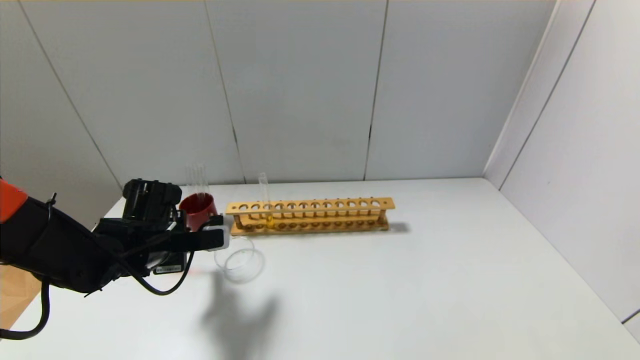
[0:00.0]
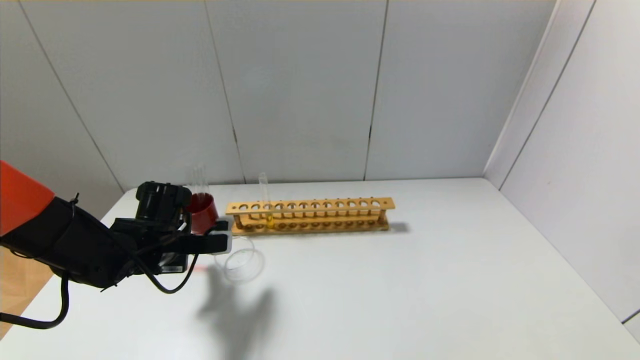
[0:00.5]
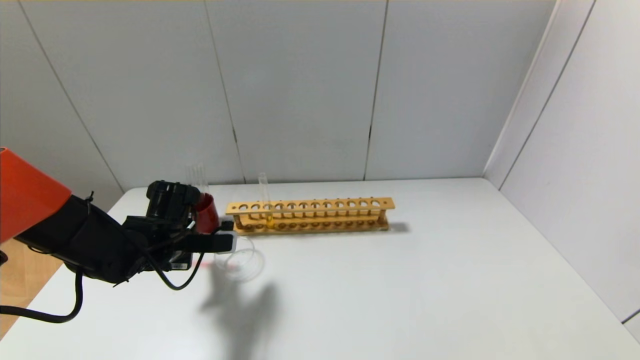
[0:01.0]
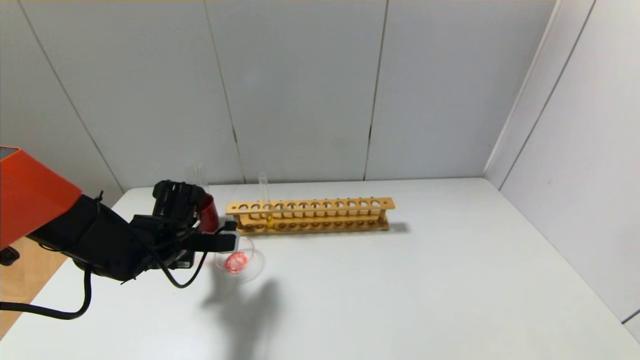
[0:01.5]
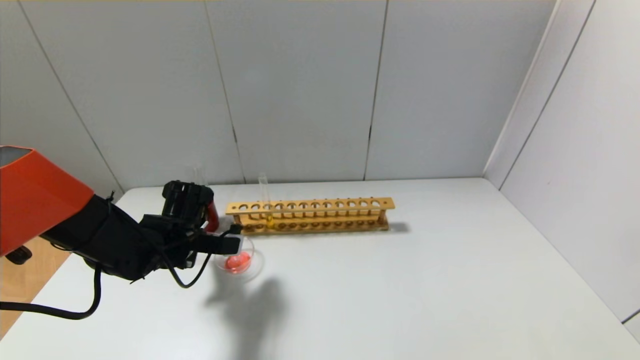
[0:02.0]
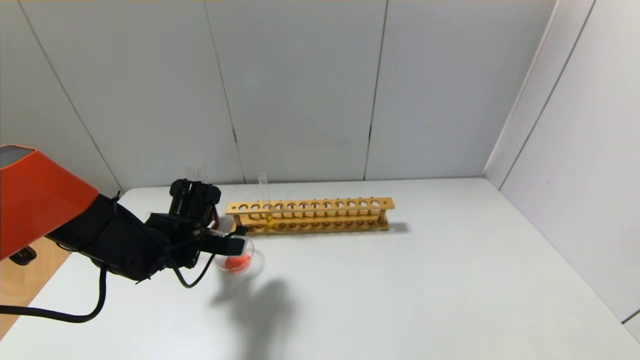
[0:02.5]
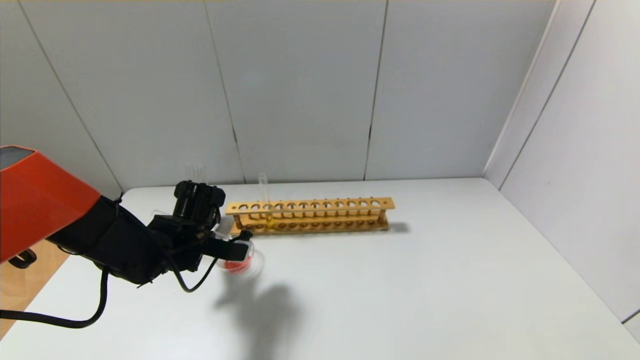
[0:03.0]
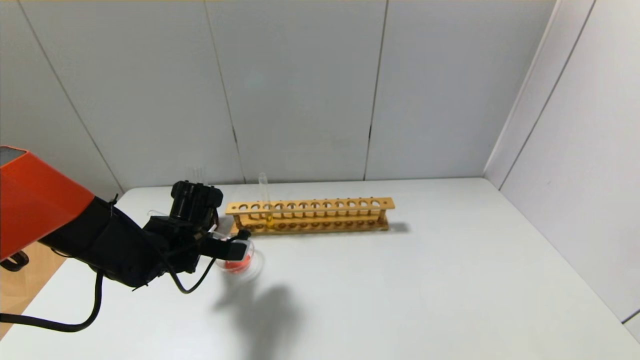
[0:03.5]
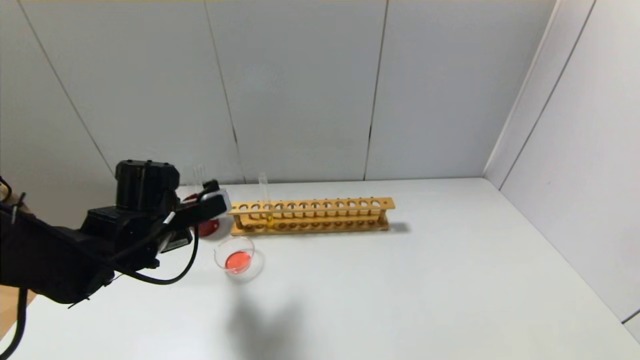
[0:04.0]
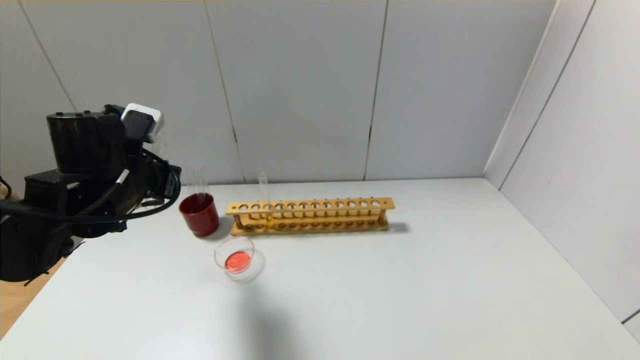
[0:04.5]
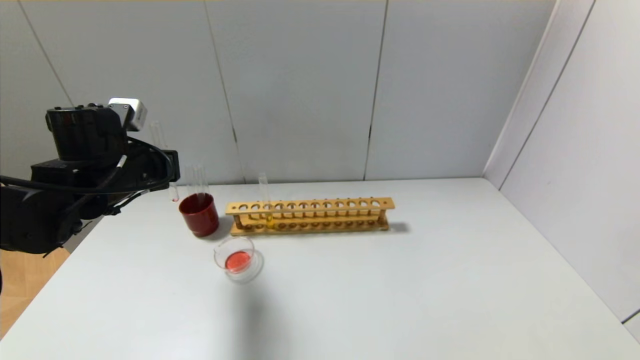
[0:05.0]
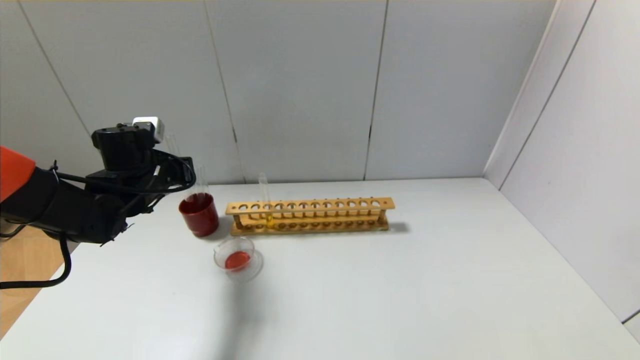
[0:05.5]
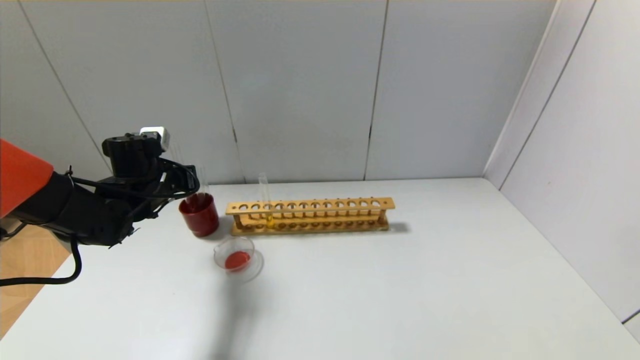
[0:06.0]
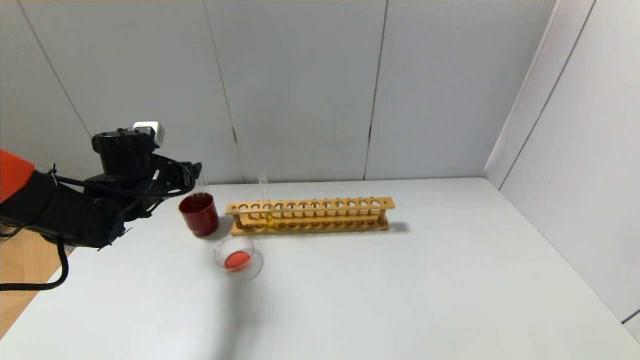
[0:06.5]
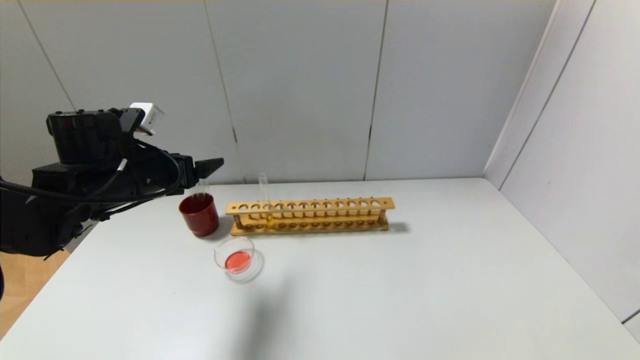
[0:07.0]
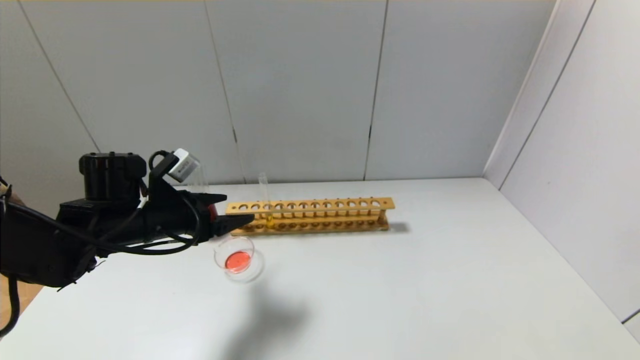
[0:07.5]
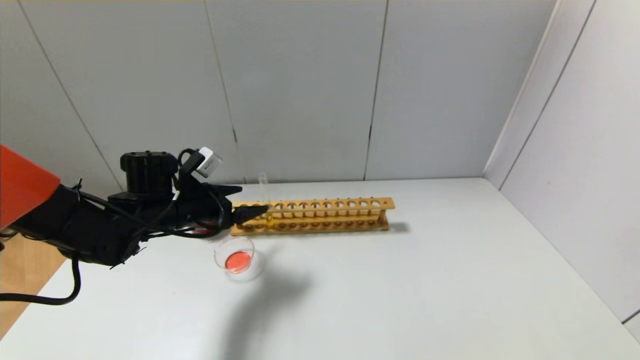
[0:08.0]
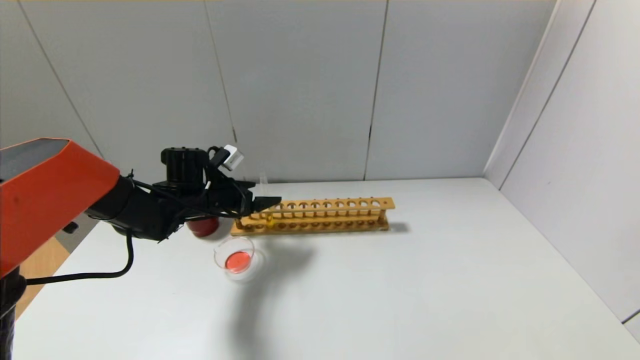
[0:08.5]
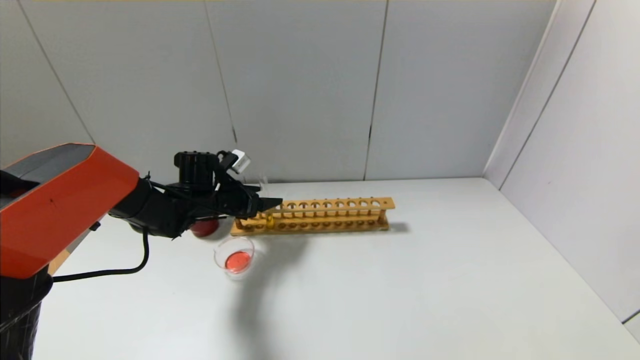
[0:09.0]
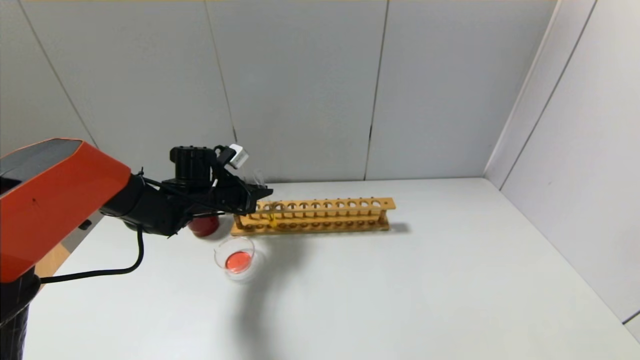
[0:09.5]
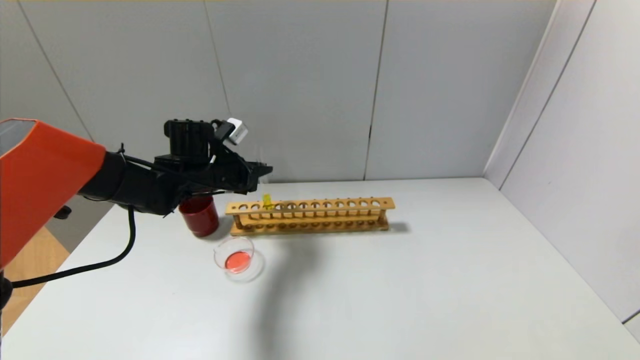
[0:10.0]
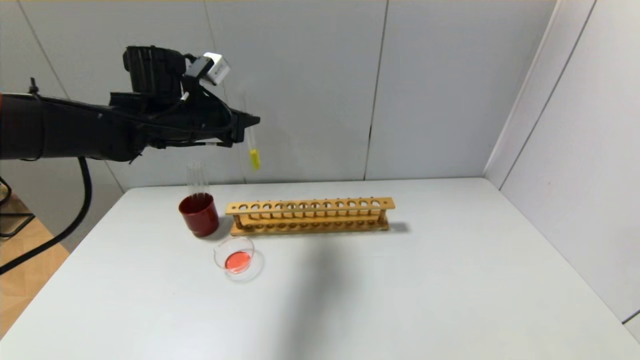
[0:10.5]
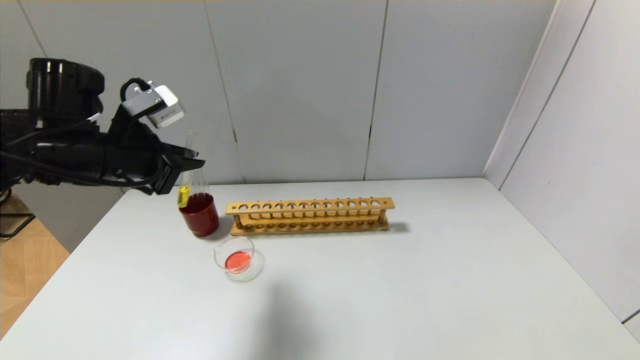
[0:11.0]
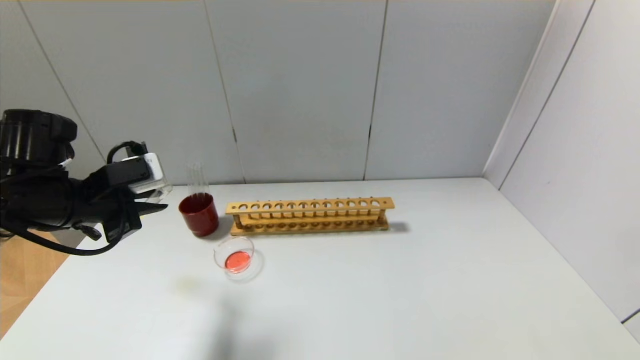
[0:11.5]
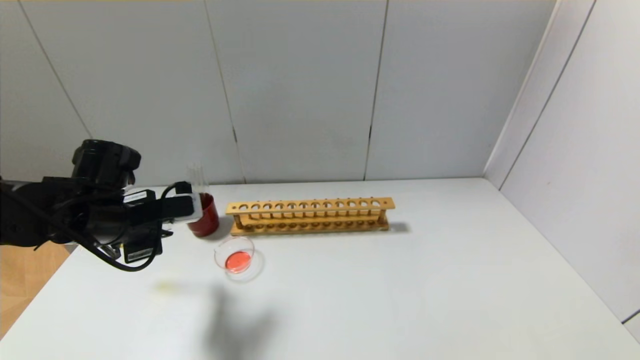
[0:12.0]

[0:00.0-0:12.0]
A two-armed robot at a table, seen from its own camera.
Step, 0:00.0 to 0:03.5: Pour the red reagent into the graduated cylinder with the left gripper.
Step, 0:04.0 to 0:06.0: Place the test tube into the brown cup with the left gripper.
Step, 0:06.5 to 0:09.5: Grasp the yellow reagent with the left gripper.
0:00.0 to 0:02.0: The grippers stay close to where they were, moving slightly.
0:02.0 to 0:04.0: The left gripper is displaced upward by about 5 cm.
0:04.0 to 0:06.0: The left gripper moves forward and to the left, roughly 10 cm.
0:06.0 to 0:08.0: The left gripper opens up.
0:08.0 to 0:10.0: The left gripper moves forward, about 5 cm, and closes.
0:10.0 to 0:12.0: The left gripper shifts some 15 cm backward and to the left.

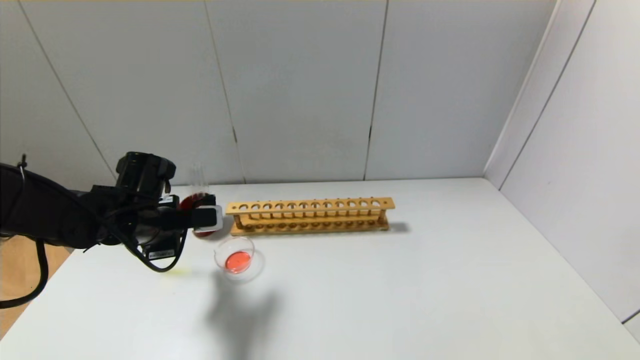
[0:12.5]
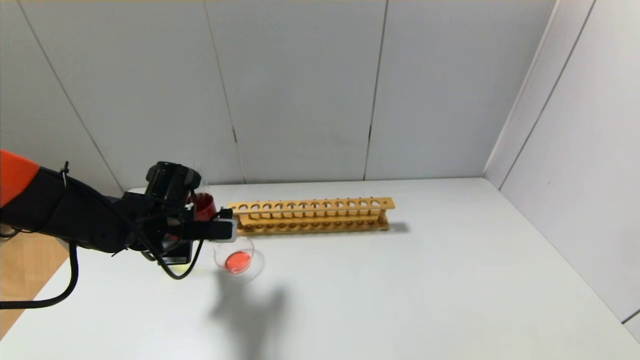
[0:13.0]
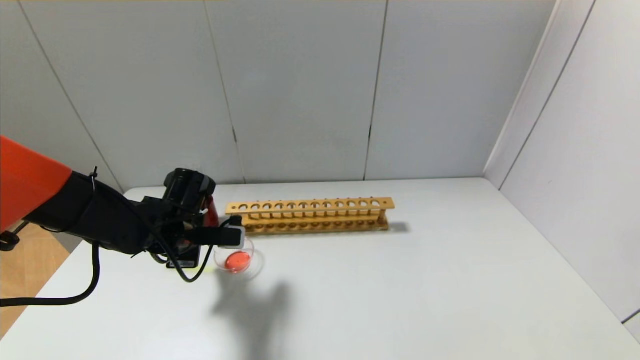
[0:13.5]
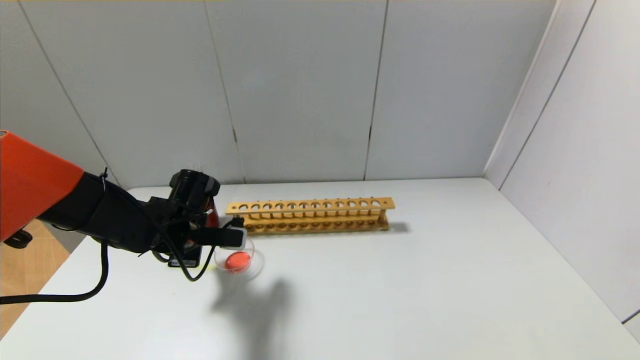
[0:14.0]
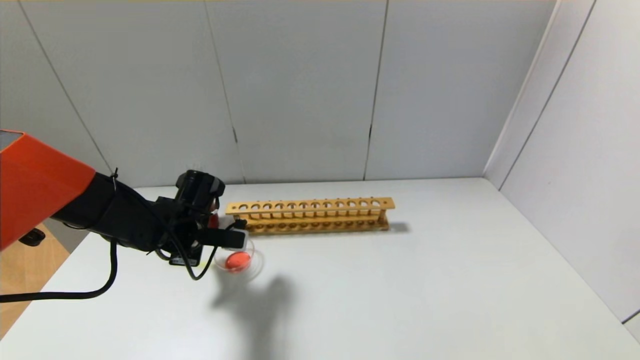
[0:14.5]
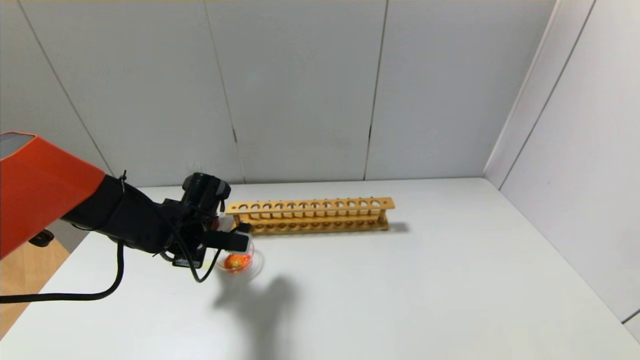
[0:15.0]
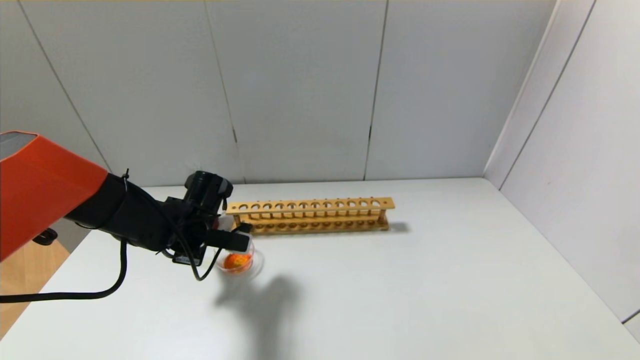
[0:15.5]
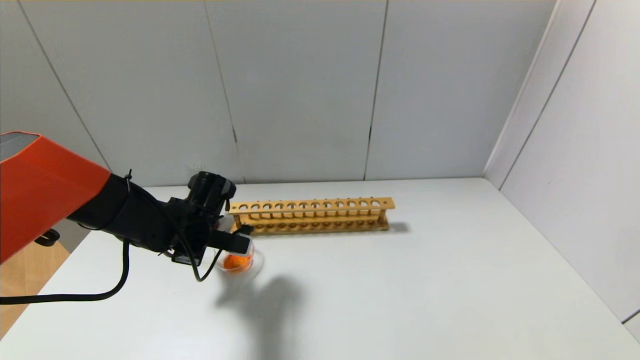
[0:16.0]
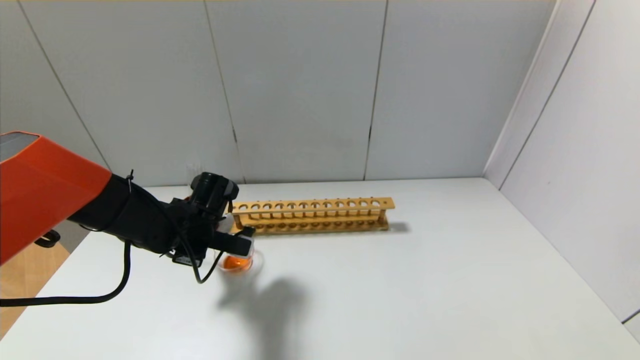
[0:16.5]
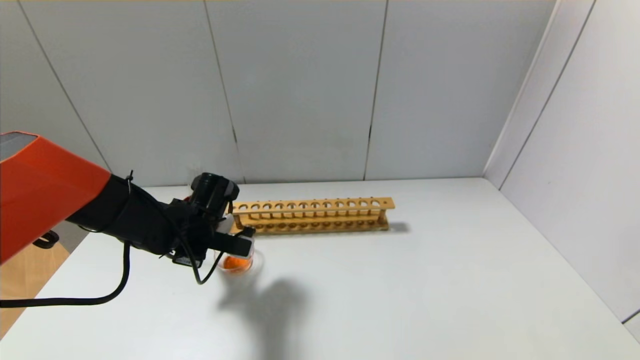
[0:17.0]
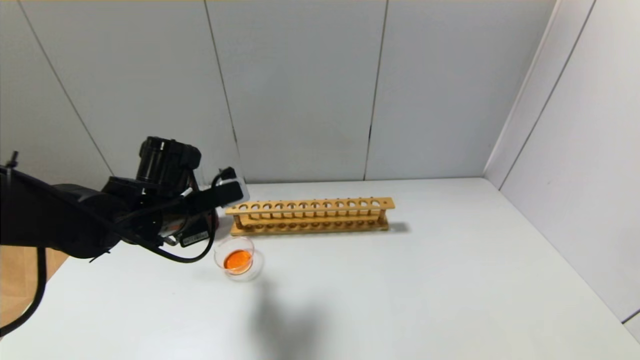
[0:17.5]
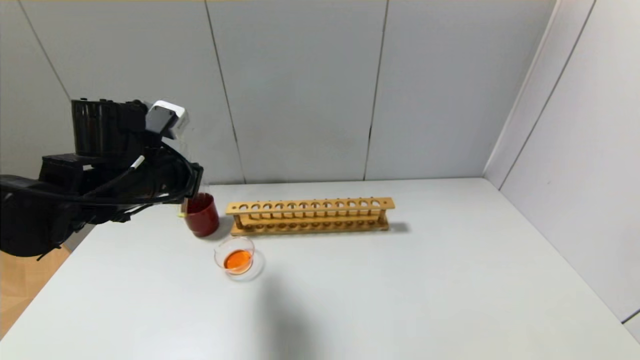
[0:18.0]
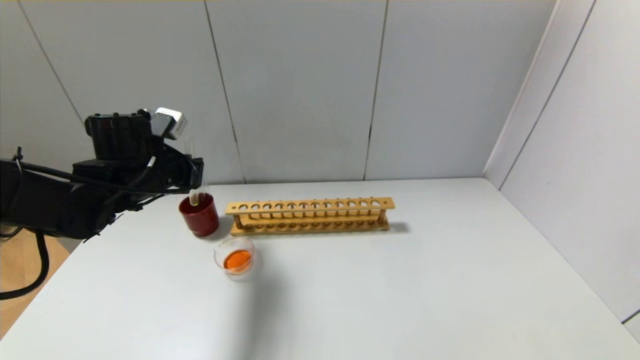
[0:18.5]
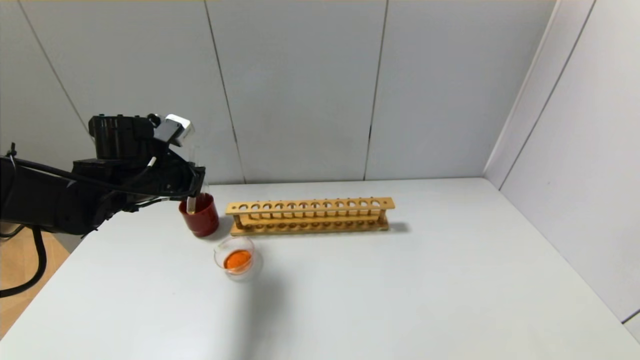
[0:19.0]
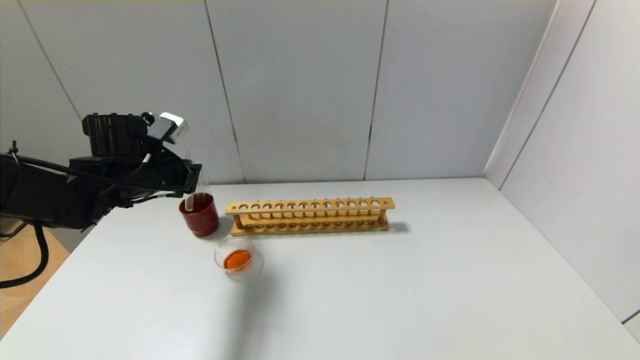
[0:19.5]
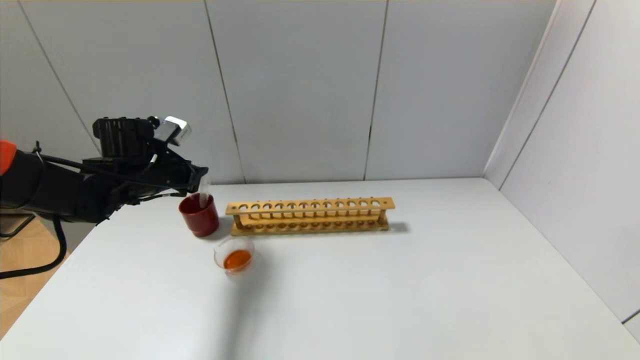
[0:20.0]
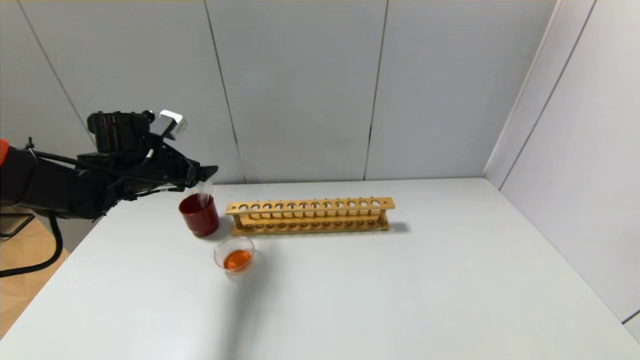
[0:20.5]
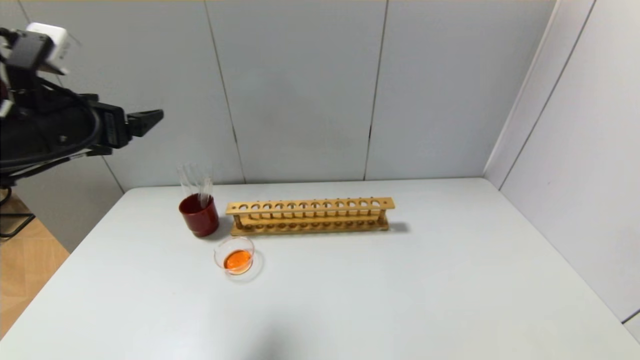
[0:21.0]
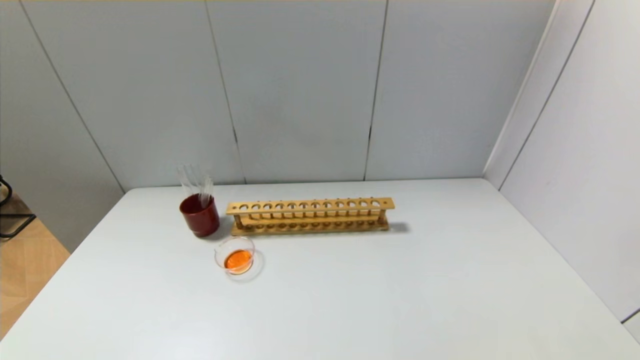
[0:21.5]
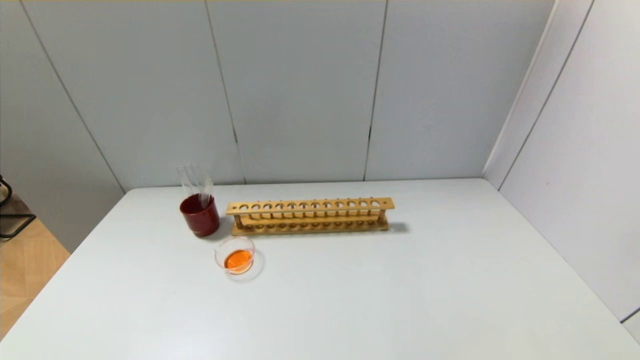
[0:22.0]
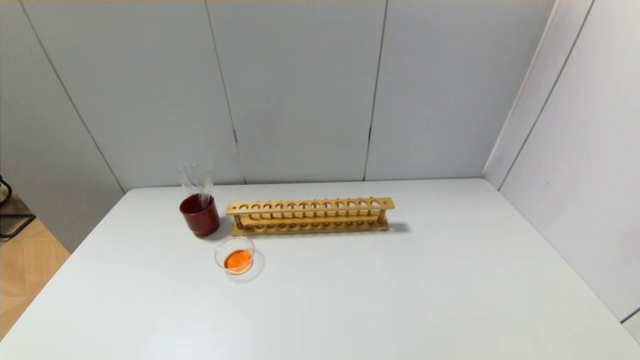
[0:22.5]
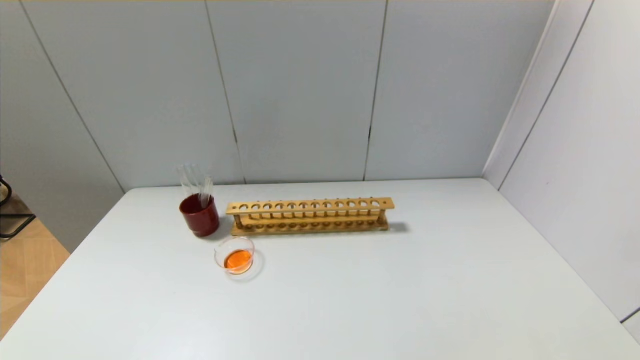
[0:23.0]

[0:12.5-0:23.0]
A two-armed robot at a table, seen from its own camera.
Step, 0:12.5 to 0:17.0: Pour the yellow reagent into the graduated cylinder with the left gripper.
Step, 0:17.5 to 0:20.5: Place the test tube into the brown cup with the left gripper.
0:12.5 to 0:14.5: The left gripper shifts by about 5 cm.
0:14.5 to 0:16.5: The grippers stay close to where they were, moving slightly.
0:16.5 to 0:19.0: The left gripper is displaced upward and to the left by some 10 cm.
0:19.0 to 0:21.0: The left gripper shifts approximately 15 cm upward and backward, and opens up.
0:21.0 to 0:23.0: The left gripper travels backward and downward by approximately 35 cm.
